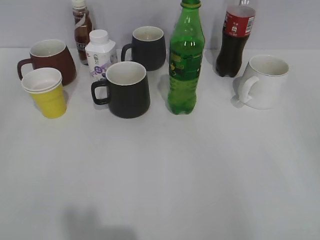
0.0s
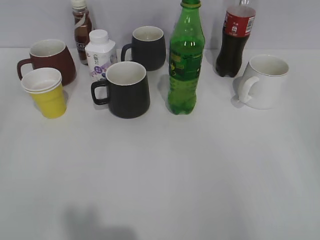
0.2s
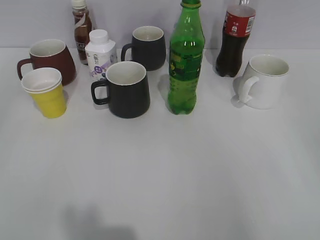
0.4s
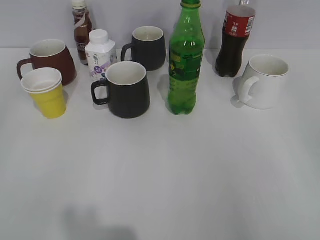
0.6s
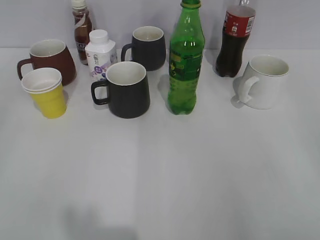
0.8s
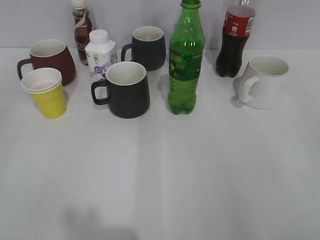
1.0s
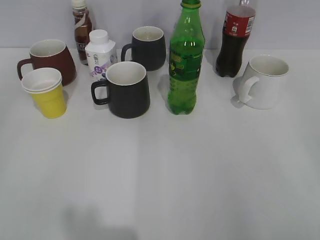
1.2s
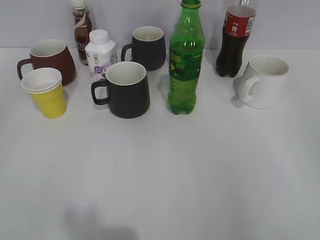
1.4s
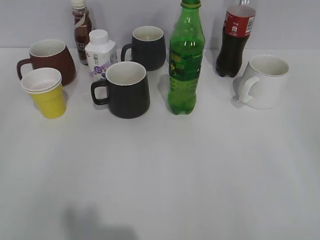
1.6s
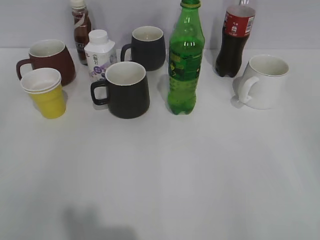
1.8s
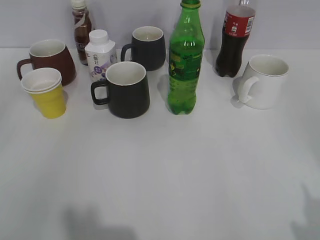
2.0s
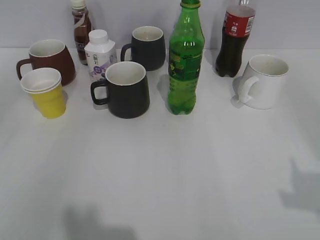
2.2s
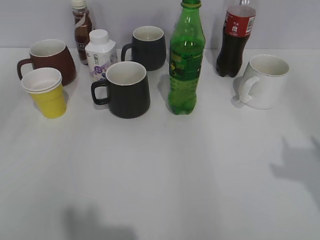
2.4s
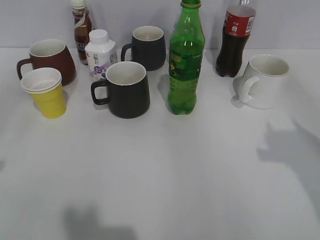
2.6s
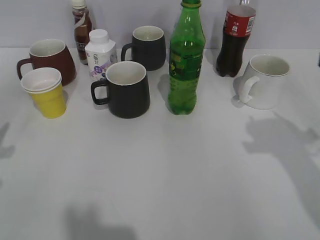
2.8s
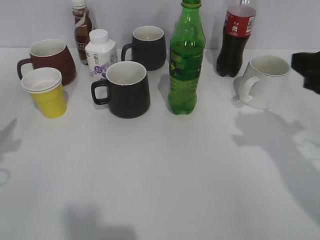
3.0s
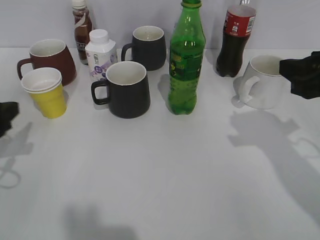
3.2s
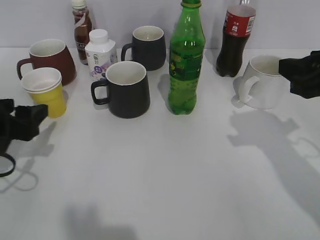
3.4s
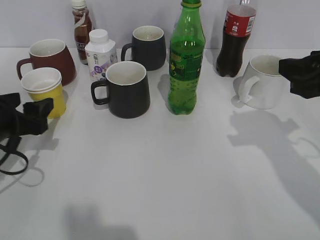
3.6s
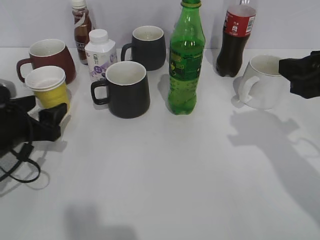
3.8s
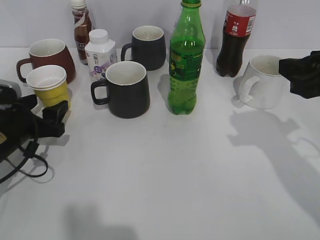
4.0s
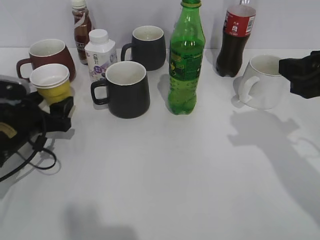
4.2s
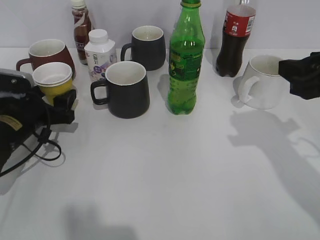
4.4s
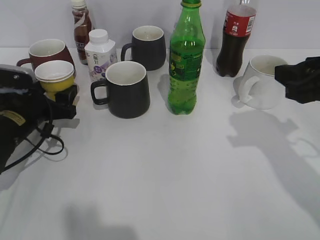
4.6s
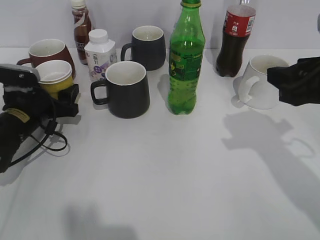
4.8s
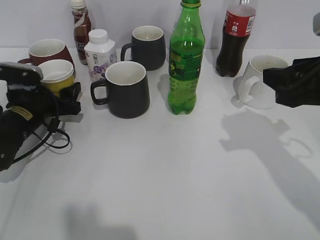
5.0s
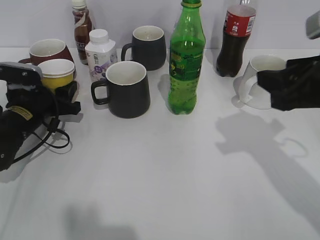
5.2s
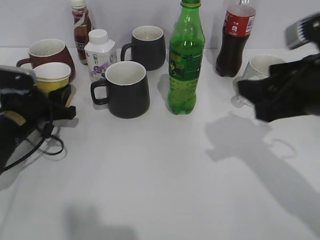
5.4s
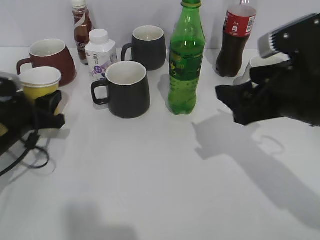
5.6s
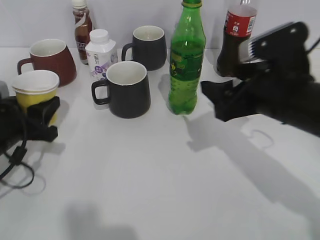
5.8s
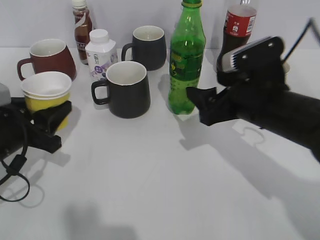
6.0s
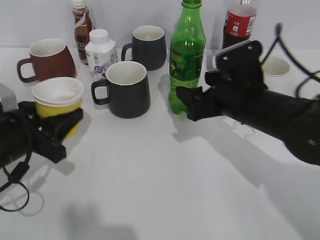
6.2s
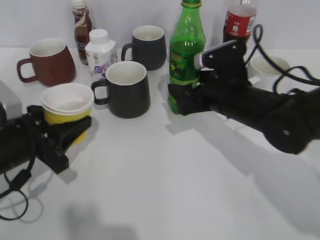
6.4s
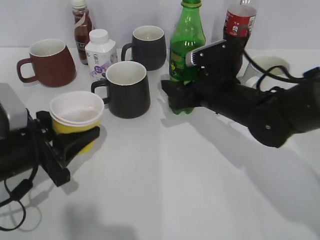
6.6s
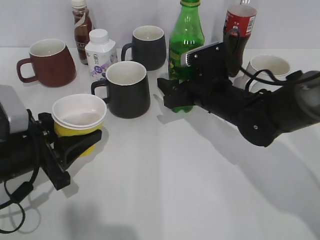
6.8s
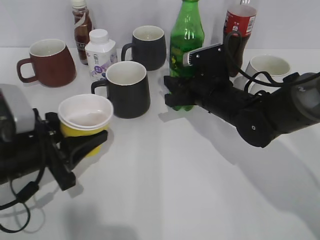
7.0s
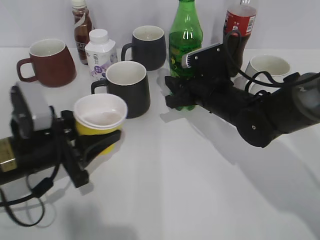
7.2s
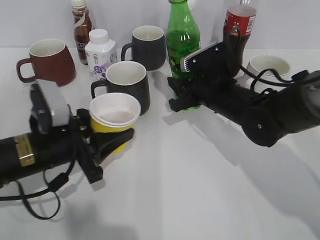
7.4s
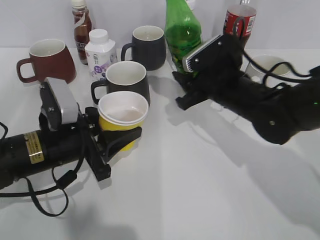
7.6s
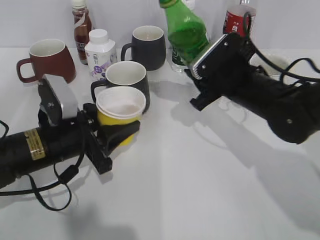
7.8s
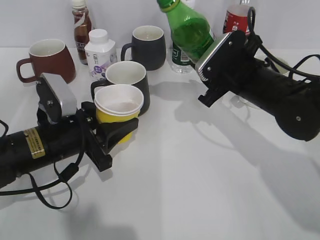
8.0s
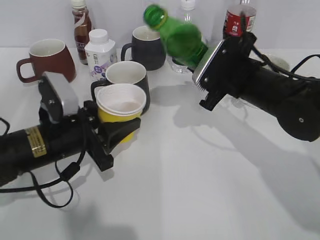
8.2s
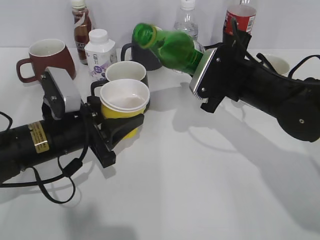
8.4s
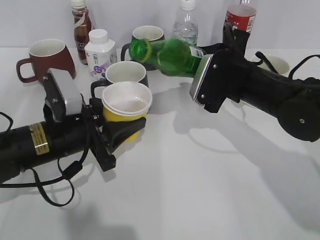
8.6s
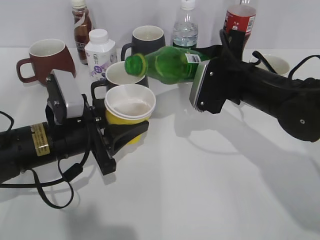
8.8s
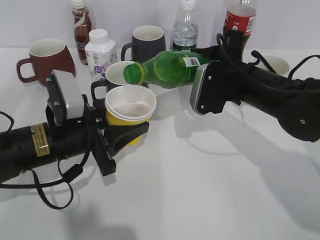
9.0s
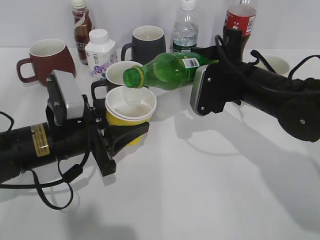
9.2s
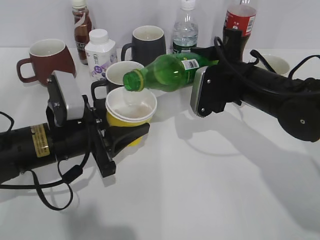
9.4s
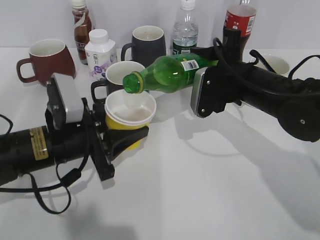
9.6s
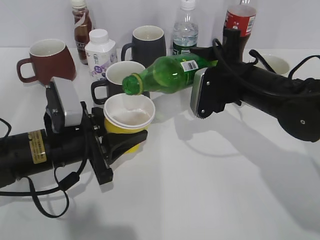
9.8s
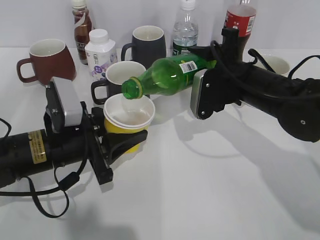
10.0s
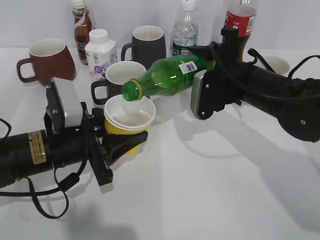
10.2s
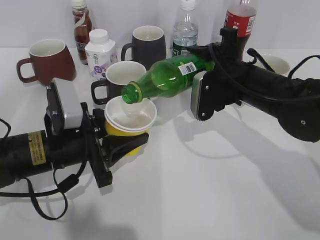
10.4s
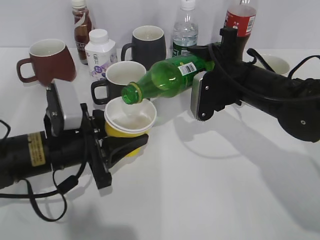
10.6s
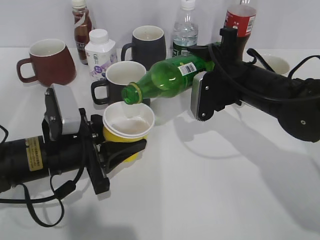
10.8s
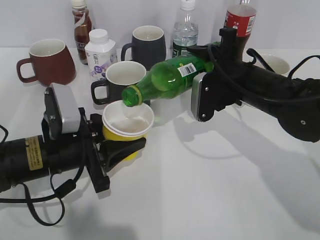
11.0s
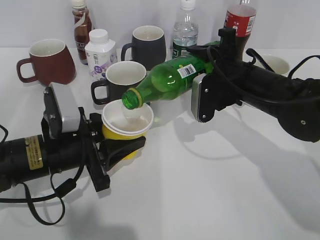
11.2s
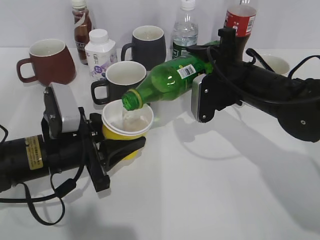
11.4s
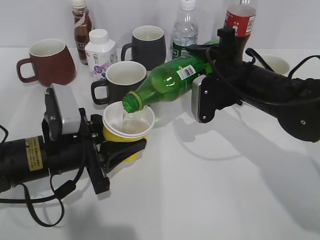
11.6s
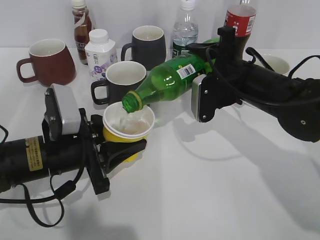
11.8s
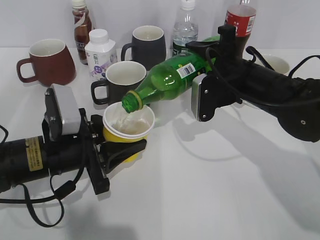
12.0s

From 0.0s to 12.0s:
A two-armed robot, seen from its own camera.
Step, from 1.6s to 4.4s: Grasp the yellow paper cup with left gripper.
Step, from 4.6s to 7.0s: Grasp the bottle with sprite with right gripper.
From 1.6s to 3.0s: The right gripper heads forward, covering about 20 cm.
From 3.0s to 4.4s: The left gripper moves downward, forward and to the right, approximately 15 cm.
From 4.4s to 6.0s: The right gripper travels to the left and downward by some 10 cm, and opens; the left gripper goes roughly 5 cm backward, and closes up.
From 6.0s to 7.6s: The right gripper travels forward by about 10 cm, and closes up, while the left gripper heads to the right, covering approximately 10 cm.
From 9.0s to 12.0s: There are only small adjustments of the grippers.

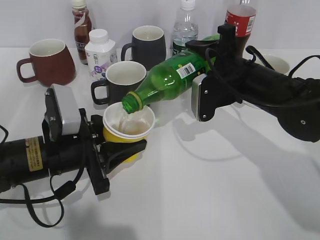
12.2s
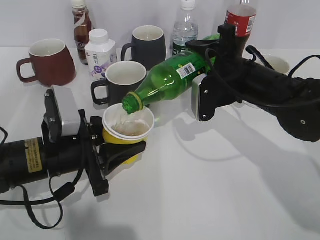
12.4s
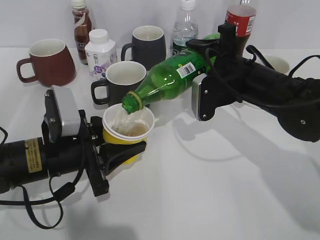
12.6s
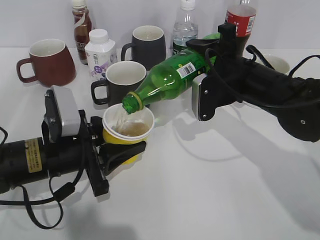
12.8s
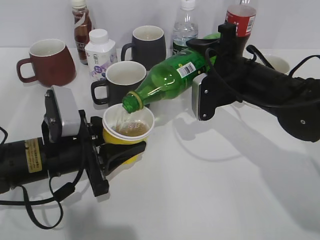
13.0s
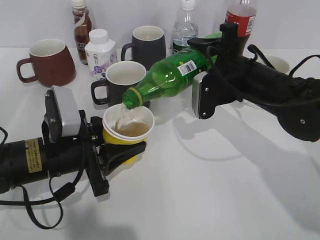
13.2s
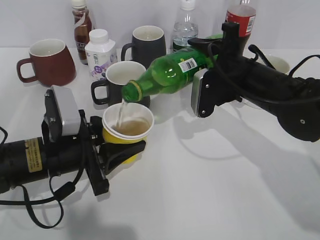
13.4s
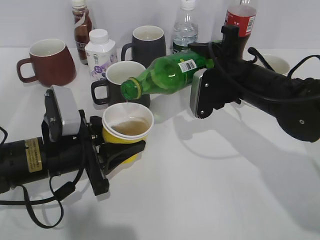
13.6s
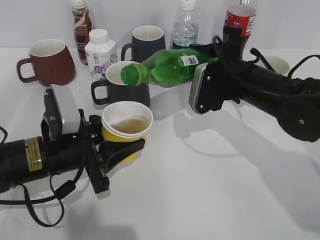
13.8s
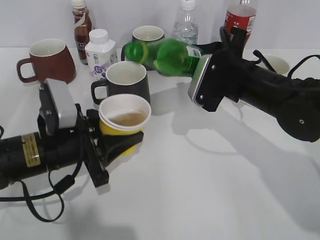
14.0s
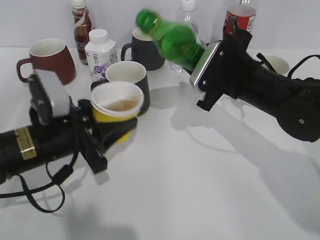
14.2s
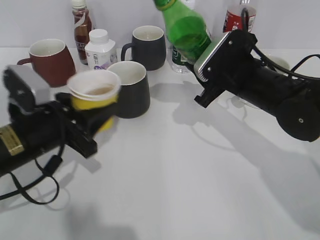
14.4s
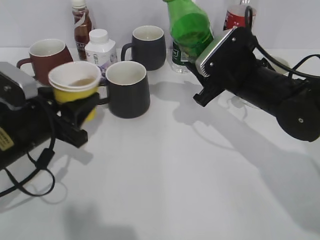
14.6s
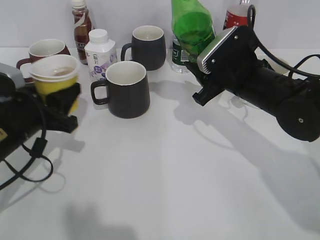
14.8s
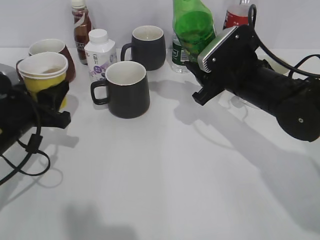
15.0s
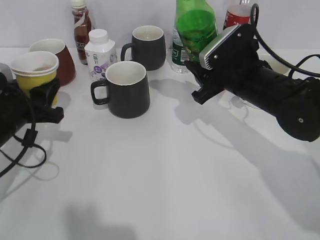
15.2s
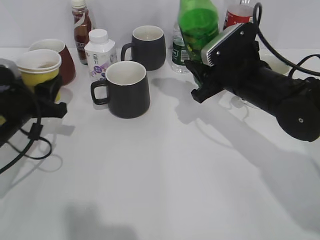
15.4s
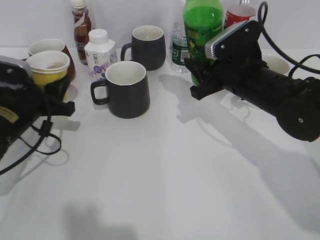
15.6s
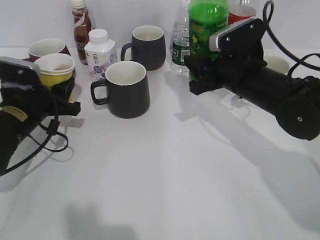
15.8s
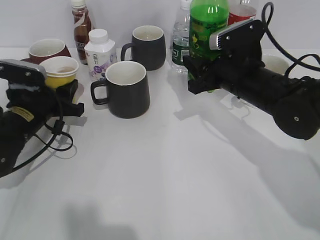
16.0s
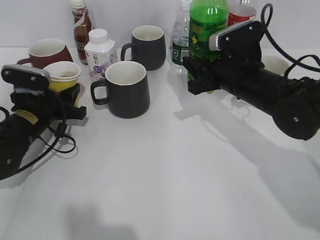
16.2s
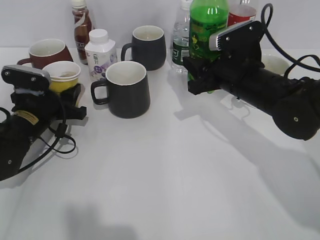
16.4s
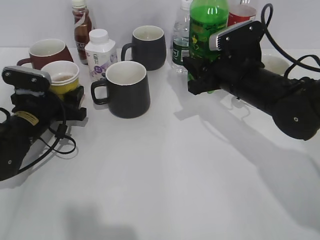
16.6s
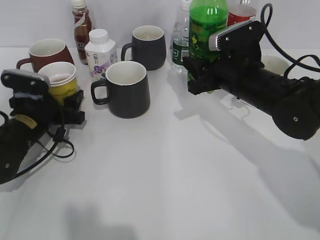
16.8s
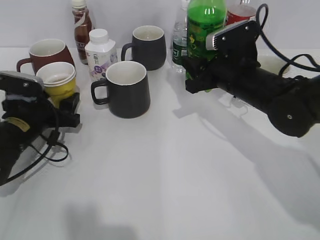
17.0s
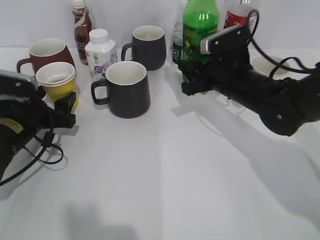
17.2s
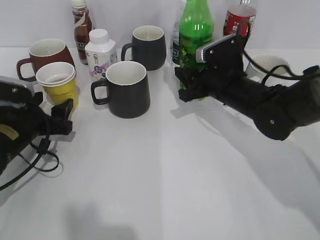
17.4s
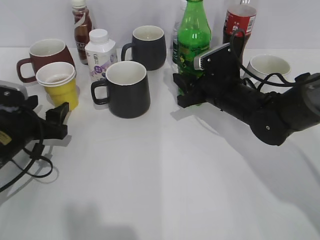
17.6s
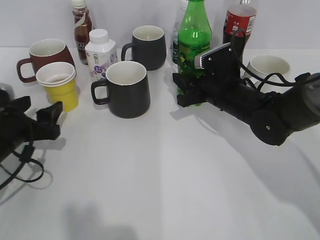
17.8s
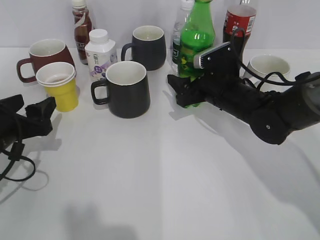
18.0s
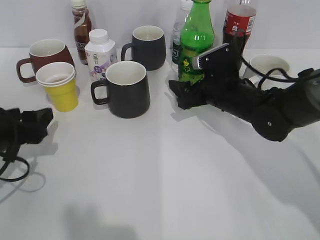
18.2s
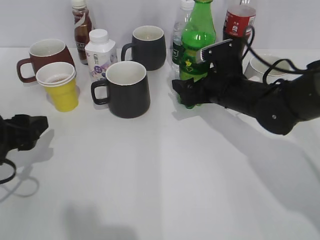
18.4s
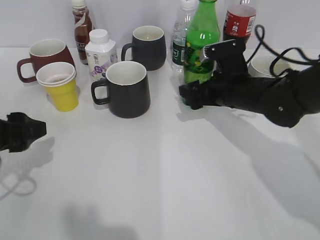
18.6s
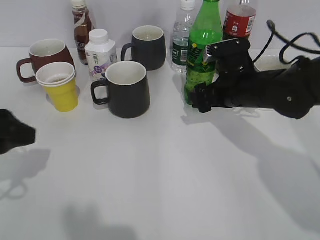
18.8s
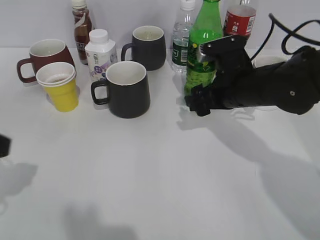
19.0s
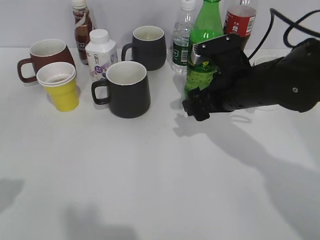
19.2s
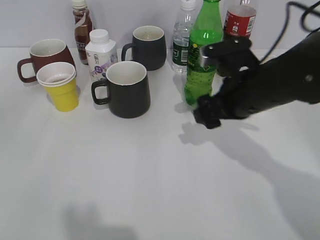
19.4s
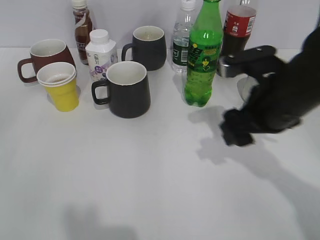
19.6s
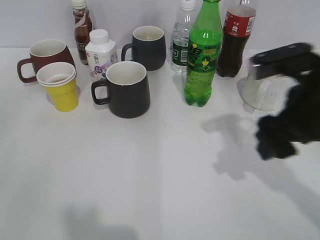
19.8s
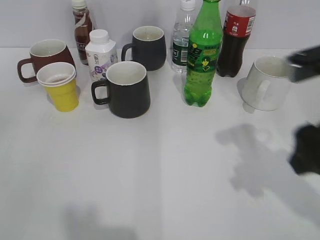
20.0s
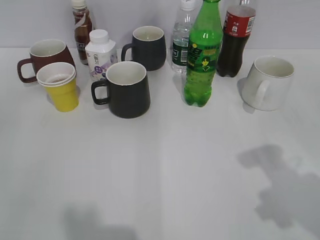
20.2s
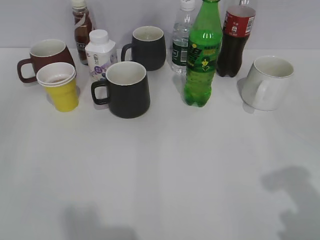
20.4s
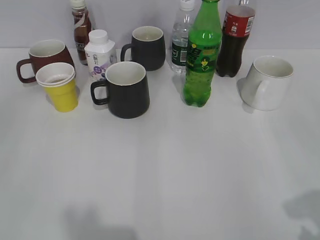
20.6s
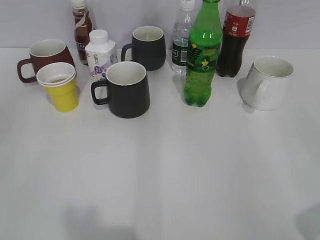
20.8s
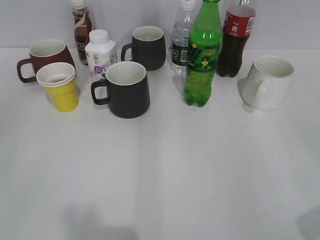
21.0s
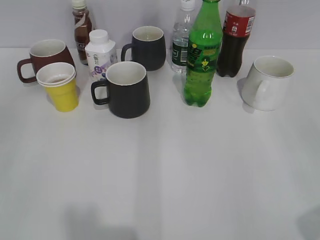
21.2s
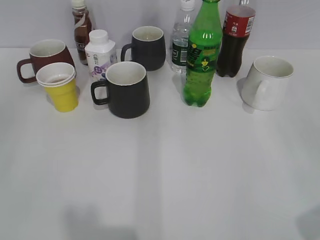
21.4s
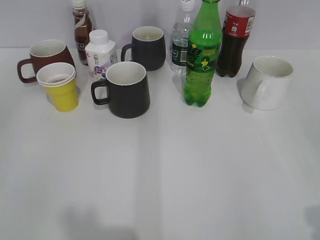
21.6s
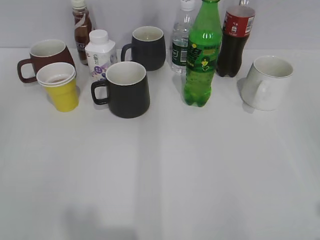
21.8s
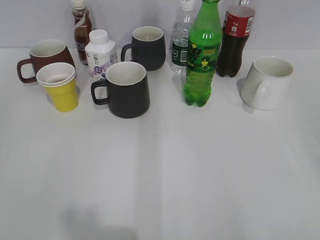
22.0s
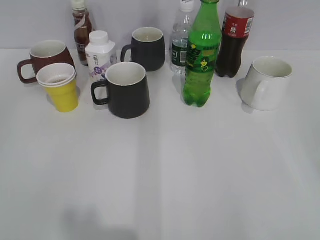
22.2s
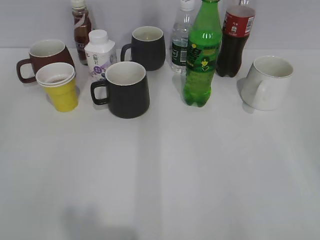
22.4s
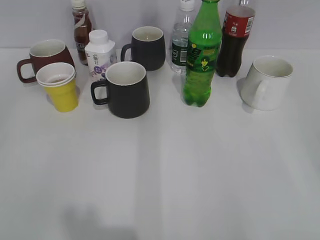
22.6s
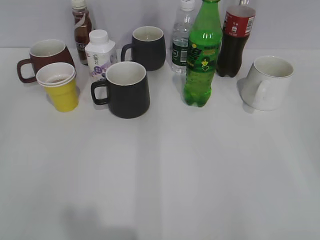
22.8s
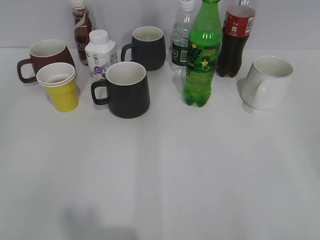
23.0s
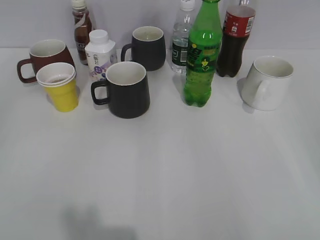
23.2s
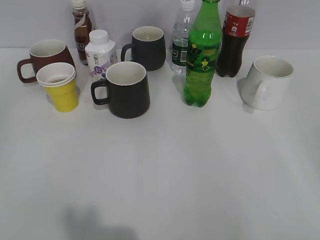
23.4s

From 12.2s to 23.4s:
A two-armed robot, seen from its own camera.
Step, from 14.0s to 15.8s: Place the yellow paper cup on the table with left gripper.
Step, from 16.0s to 19.0s: Place the sprite bottle on the table with right gripper.
From 12.2s to 13.8s: The grippers move only a little.
From 13.8s to 15.4s: The left gripper is displaced to the left by about 10 cm.
From 15.4s to 17.0s: The left gripper changes place by approximately 5 cm, and opens.
From 17.0s to 18.6s: The right gripper opens its fingers. The left gripper goes some 15 cm backward and upward.
From 18.6s to 20.2s: The left gripper travels backward and upward by some 20 cm; the right gripper travels backward, upward and to the right by about 30 cm.
From 20.2s to 21.8s: The right gripper moves backward and to the right, some 15 cm.
From 21.8s to 23.4s: There are only small adjustments of the grippers.
